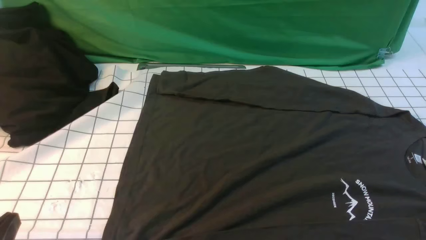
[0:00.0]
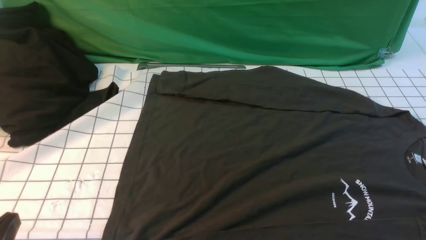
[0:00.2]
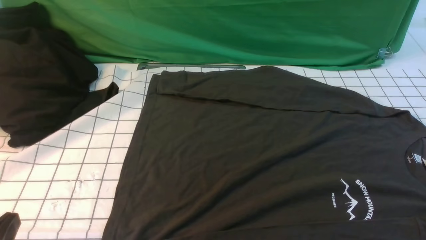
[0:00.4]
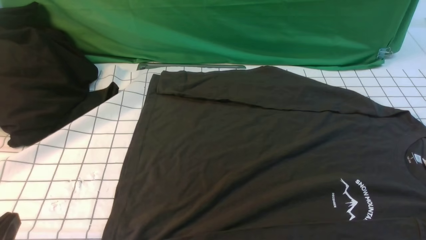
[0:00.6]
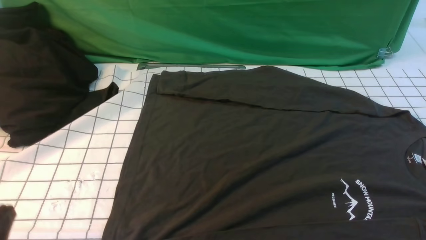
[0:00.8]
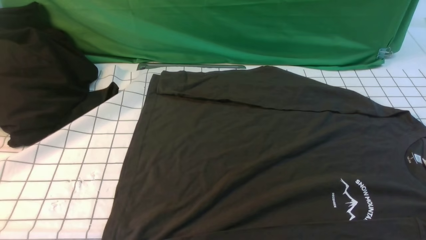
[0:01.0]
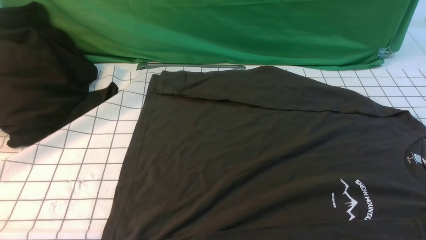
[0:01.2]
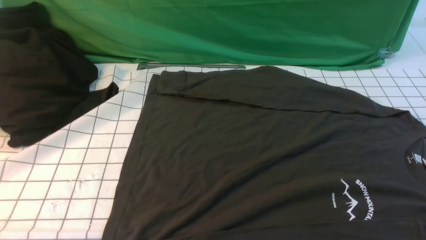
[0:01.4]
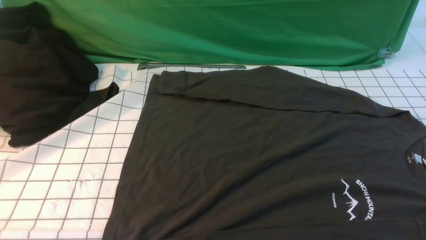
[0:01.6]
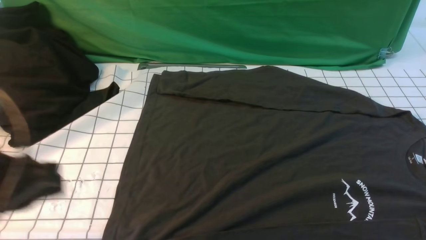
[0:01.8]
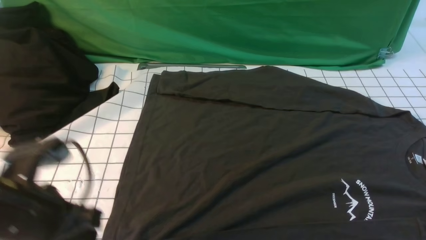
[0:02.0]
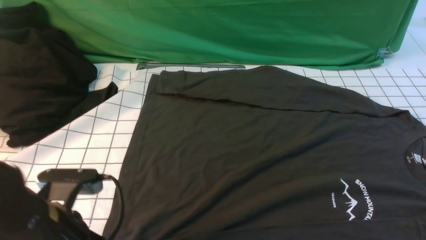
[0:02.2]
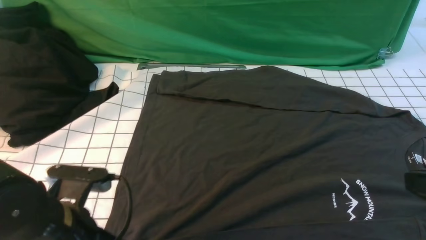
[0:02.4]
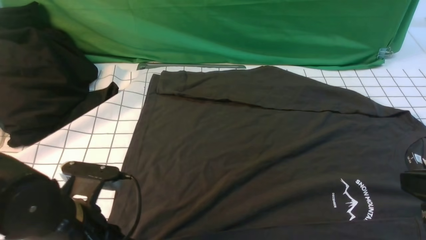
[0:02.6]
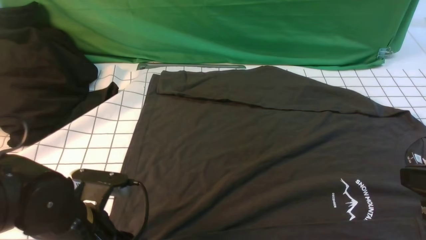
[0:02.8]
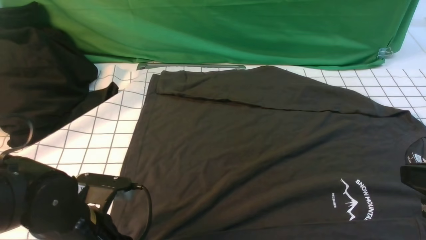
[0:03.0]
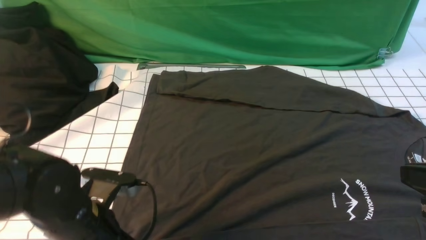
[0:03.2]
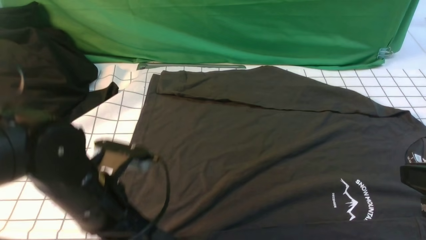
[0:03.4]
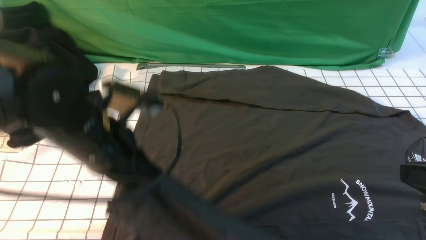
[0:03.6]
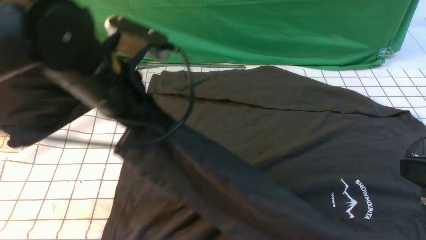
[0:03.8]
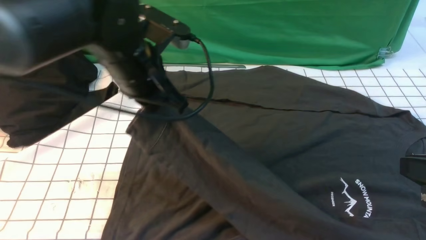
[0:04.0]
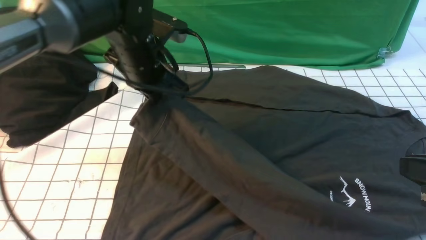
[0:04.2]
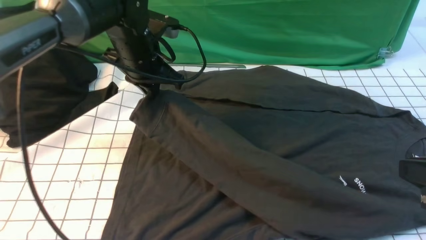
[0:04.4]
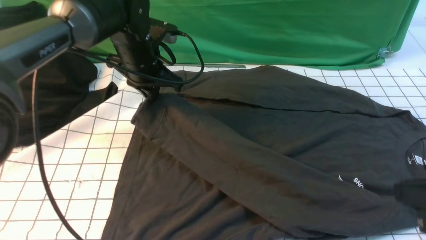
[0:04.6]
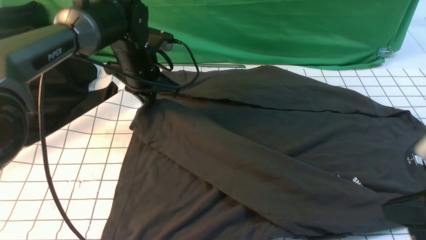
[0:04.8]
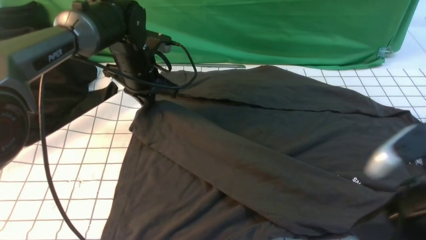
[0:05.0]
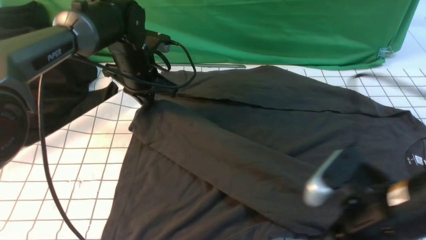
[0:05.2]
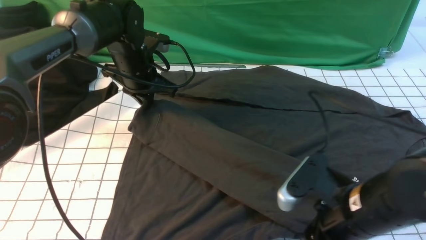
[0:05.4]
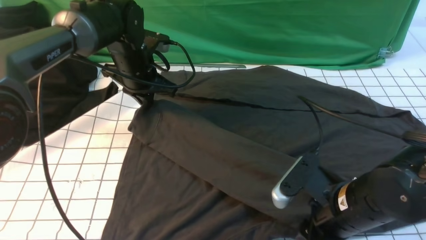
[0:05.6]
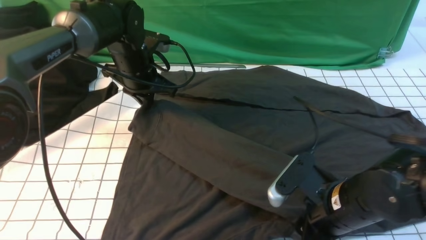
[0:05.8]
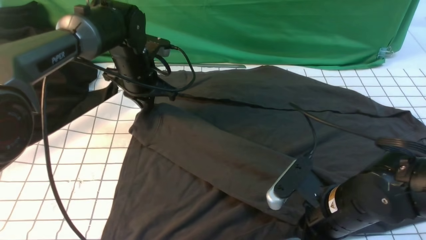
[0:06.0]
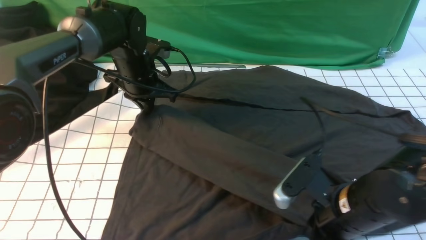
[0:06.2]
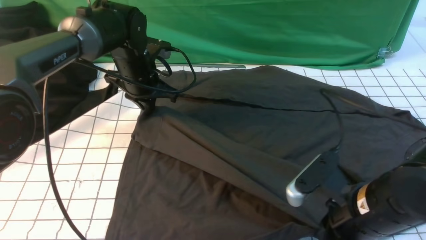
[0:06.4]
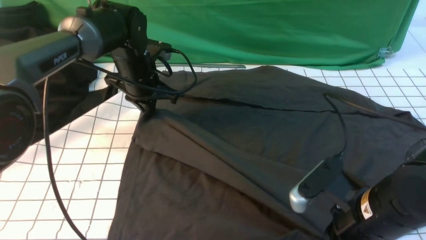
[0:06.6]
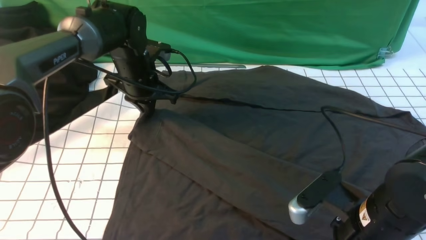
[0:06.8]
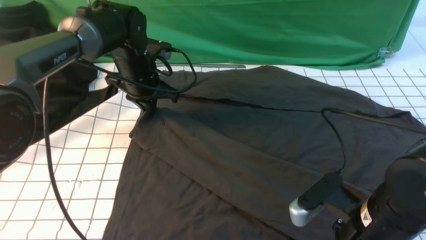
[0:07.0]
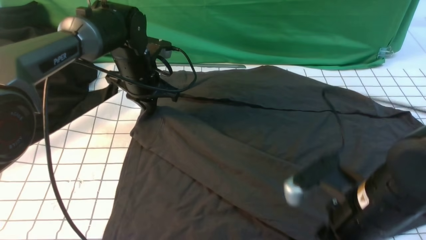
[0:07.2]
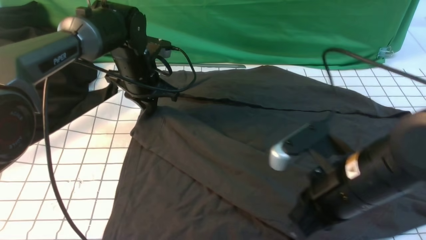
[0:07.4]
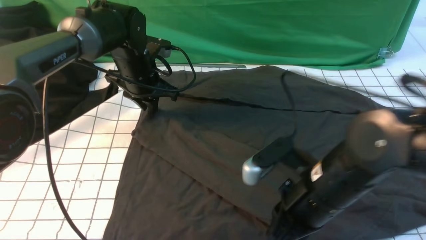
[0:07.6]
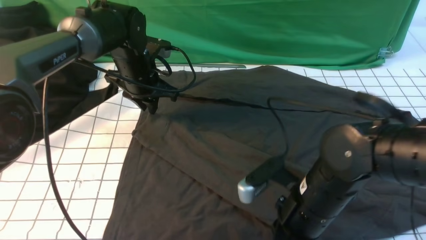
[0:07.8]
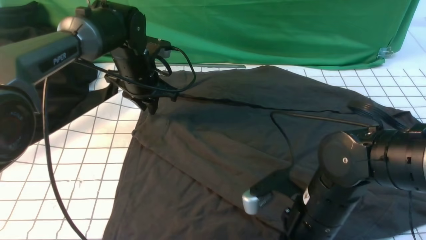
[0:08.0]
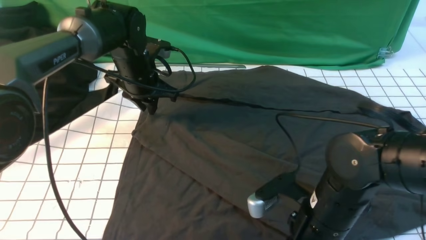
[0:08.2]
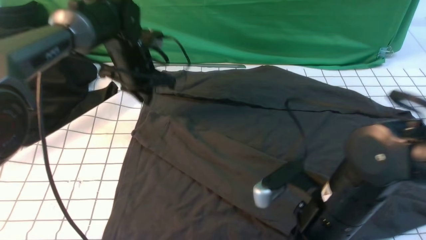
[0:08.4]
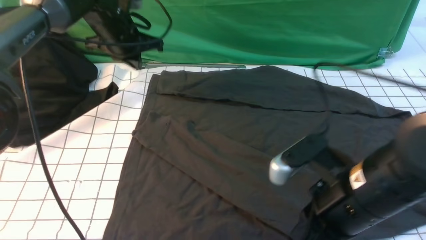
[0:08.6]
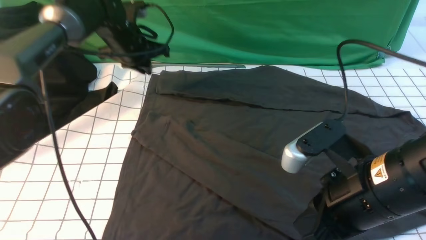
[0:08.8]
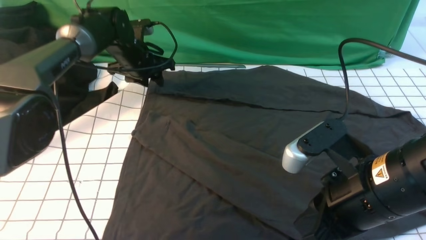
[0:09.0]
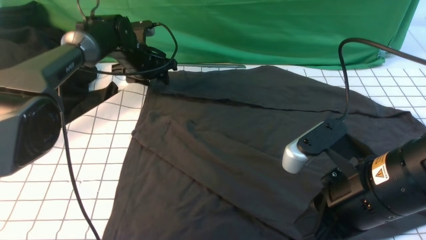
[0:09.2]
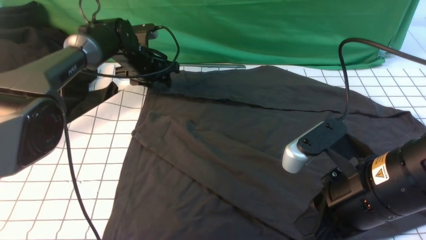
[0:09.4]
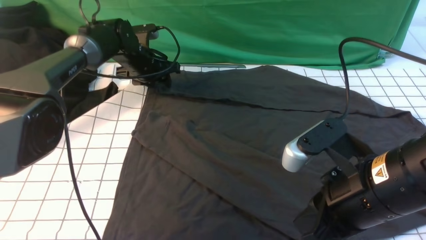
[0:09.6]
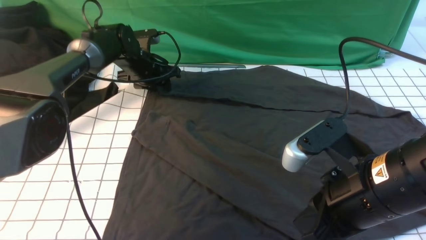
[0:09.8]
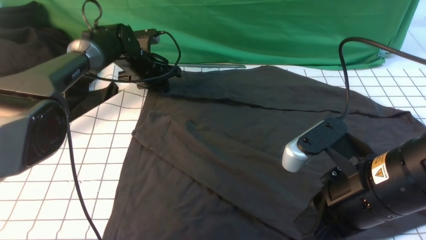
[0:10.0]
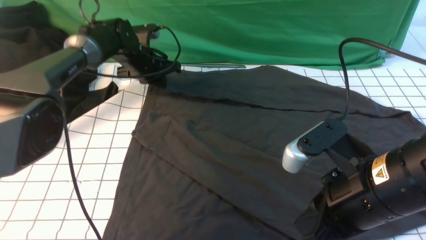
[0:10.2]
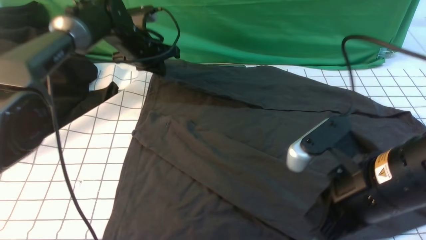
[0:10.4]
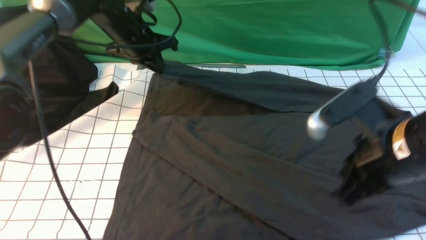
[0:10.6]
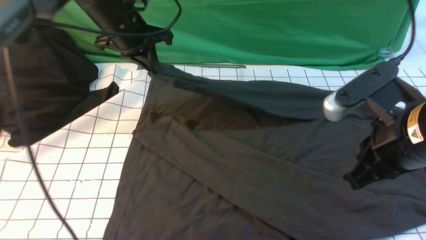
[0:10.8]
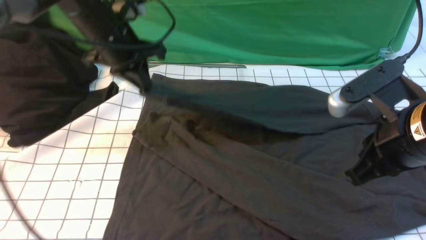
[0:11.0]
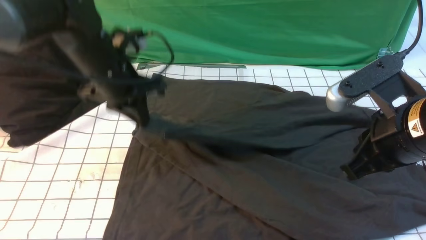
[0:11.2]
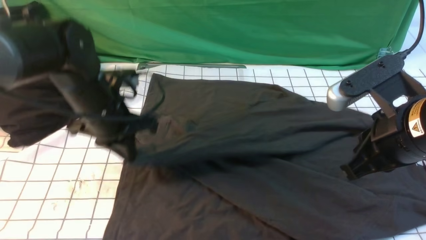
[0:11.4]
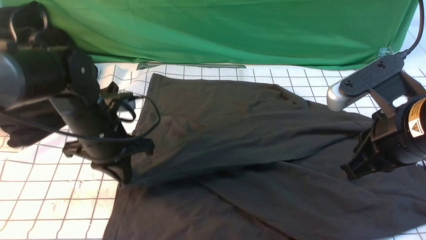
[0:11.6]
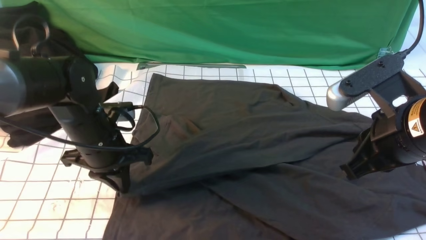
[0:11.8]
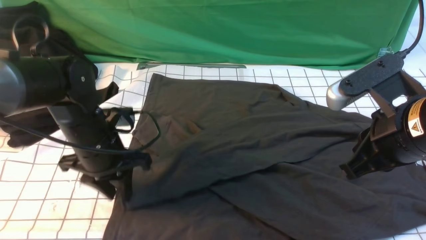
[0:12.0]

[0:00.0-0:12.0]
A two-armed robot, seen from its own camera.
Step, 0:00.0 to 0:03.0: use the left arm to clamp the cuff closest to it.
Step, 0:03.2 to 0:07.6: use the left arm to drag and place the cuff at the centered position on the left edge of the fabric.
Step, 0:07.8 to 0:10.0: use the left arm to clamp the cuff farthest from it.
Step, 0:10.2 to 0:12.0: use the left arm to drag and drop the cuff onto the cuff closest to the left arm.
0:01.6 to 0:03.0: The left gripper goes some 20 cm downward, to the right and forward, and opens. The right gripper goes roughly 15 cm upward, forward and to the left, and closes its fingers.
0:03.0 to 0:04.4: The left gripper goes roughly 25 cm forward, and closes.
0:04.4 to 0:06.0: The left gripper goes approximately 5 cm downward; the right gripper travels downward, to the left and forward by some 20 cm, and opens, then closes once more.
0:06.0 to 0:07.6: The left gripper opens its fingers. Meanwhile the right gripper moves roughly 5 cm.
0:07.6 to 0:09.0: The right gripper goes roughly 5 cm upward. The left gripper heads forward, covering approximately 5 cm, and opens up.
0:09.0 to 0:10.4: The left gripper closes.
0:10.4 to 0:12.0: The left gripper is displaced backward by approximately 20 cm, and opens, while the right gripper ends up about 5 cm from where it was.

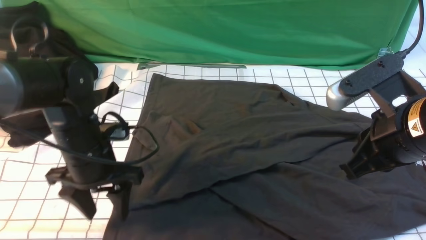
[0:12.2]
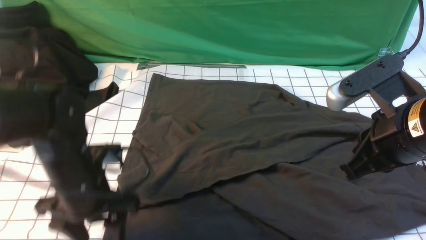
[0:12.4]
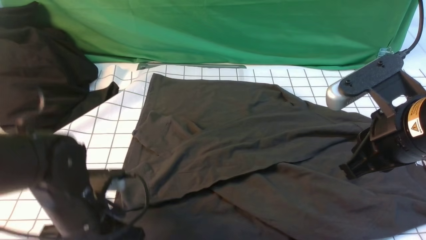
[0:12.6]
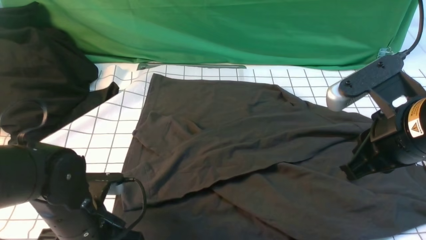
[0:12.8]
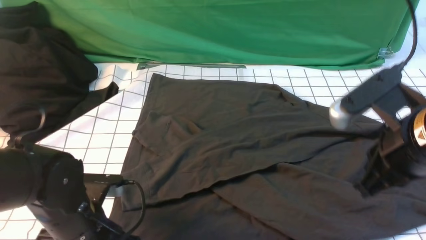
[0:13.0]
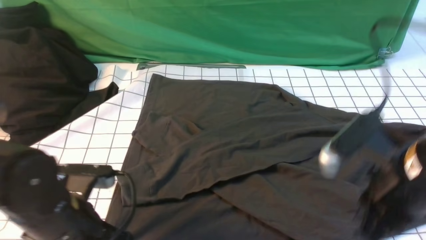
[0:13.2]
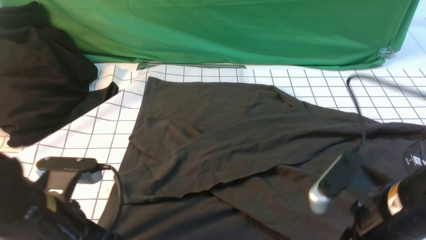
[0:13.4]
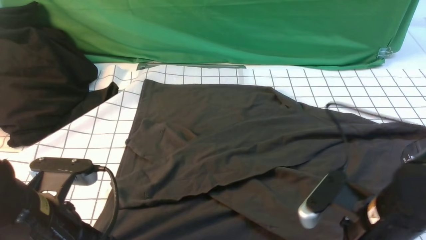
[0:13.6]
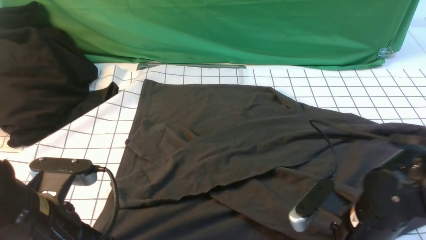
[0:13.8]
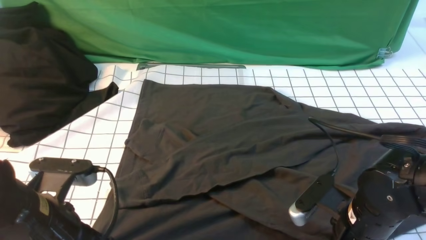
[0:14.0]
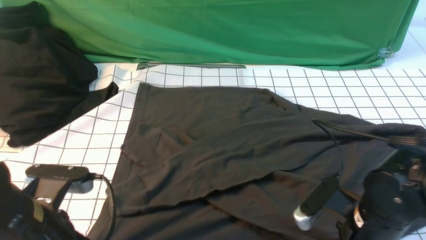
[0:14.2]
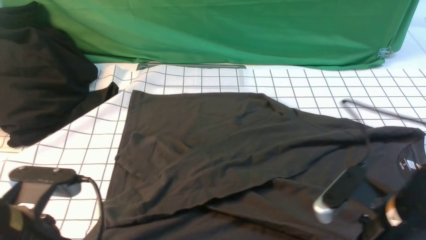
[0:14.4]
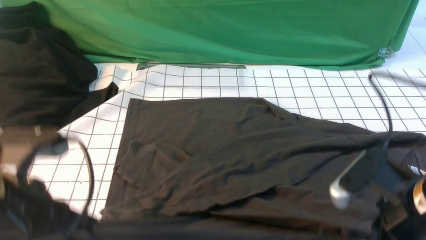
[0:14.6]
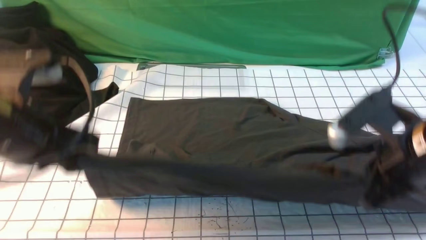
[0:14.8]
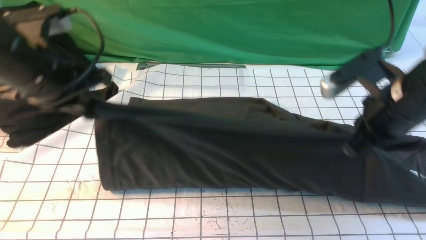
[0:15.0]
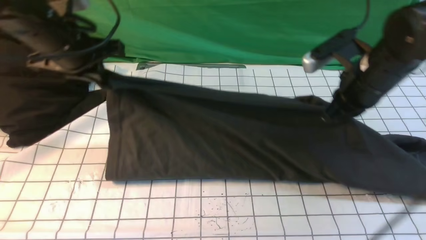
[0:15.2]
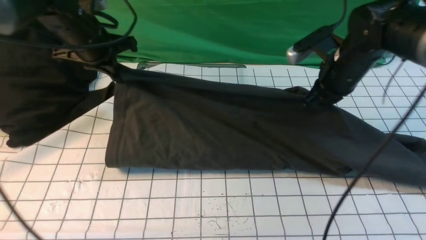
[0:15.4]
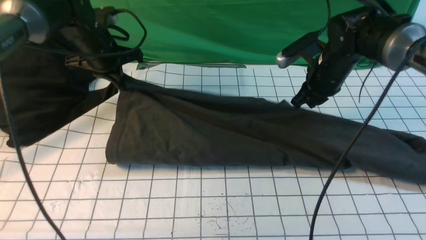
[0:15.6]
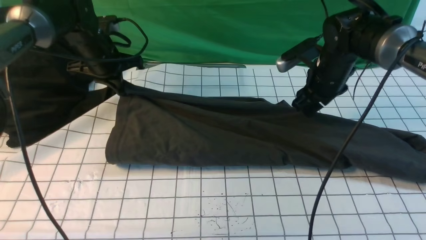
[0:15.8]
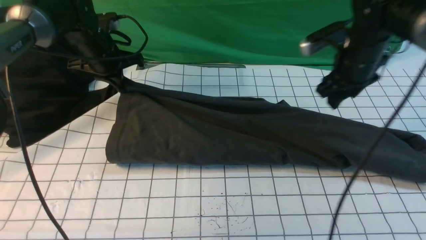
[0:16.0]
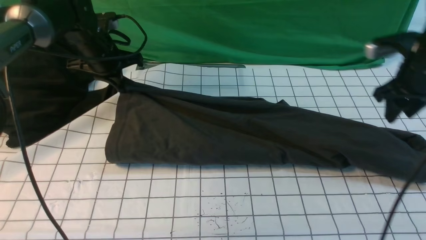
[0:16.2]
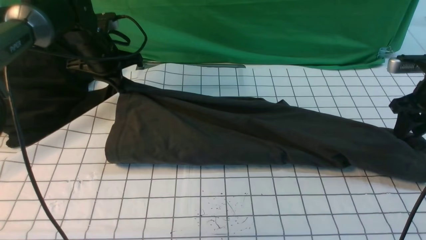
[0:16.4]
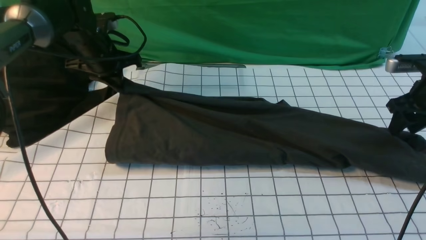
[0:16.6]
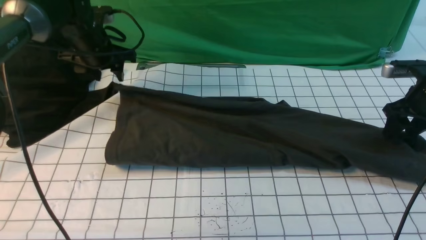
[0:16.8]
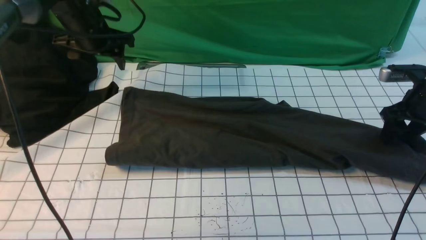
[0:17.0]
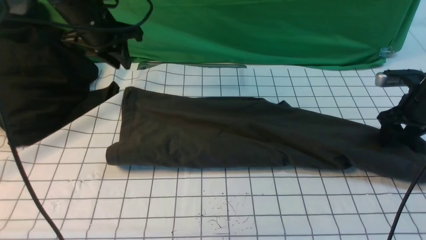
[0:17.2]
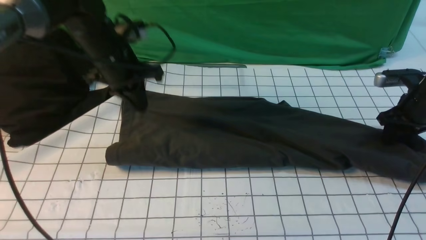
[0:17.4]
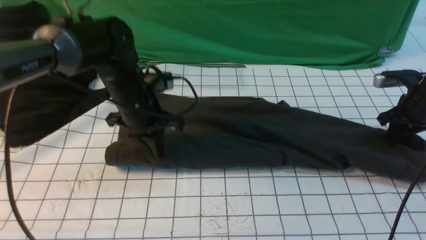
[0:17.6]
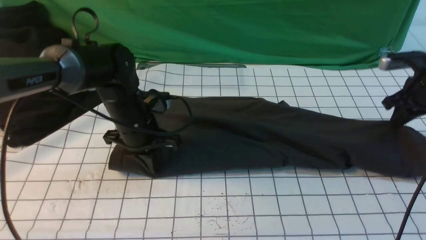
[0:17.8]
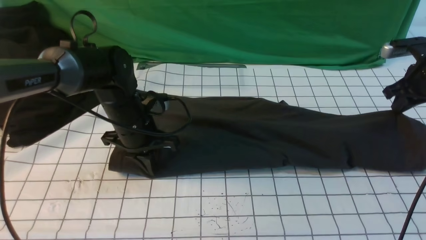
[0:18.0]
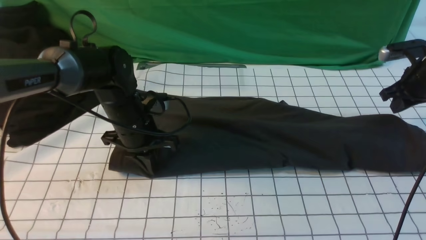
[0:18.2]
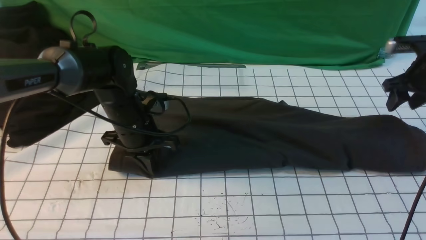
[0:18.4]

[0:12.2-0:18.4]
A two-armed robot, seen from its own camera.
Step, 0:12.2 to 0:13.8: use both arms simultaneously to clamp the lower edge of the clothing fabric.
Step, 0:14.0 to 0:17.0: use both arms to drag the lower edge of the fabric forward and fold it over the upper edge.
0:12.2 to 0:13.8: The left gripper moves backward, approximately 10 cm, and closes its fingers; the right gripper moves downward, about 15 cm, and opens up.
0:13.8 to 0:15.4: Both grippers move forward, some 25 cm. The right gripper closes its fingers.
0:15.4 to 0:16.8: The left gripper opens. The right gripper moves to the right, roughly 20 cm, and opens.
0:16.8 to 0:18.4: The left gripper goes roughly 15 cm backward, to the right and downward, and closes up, while the right gripper closes, then opens again.
